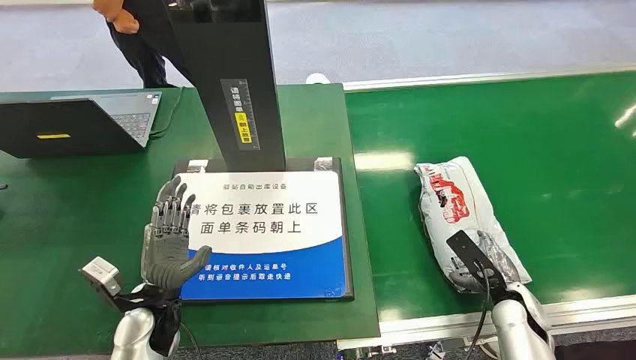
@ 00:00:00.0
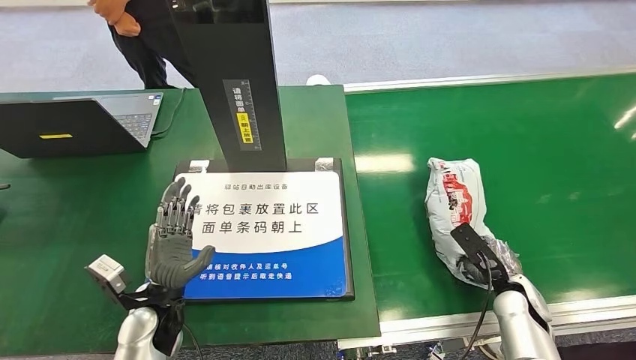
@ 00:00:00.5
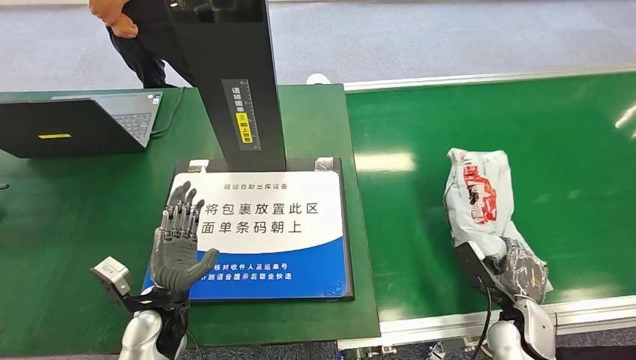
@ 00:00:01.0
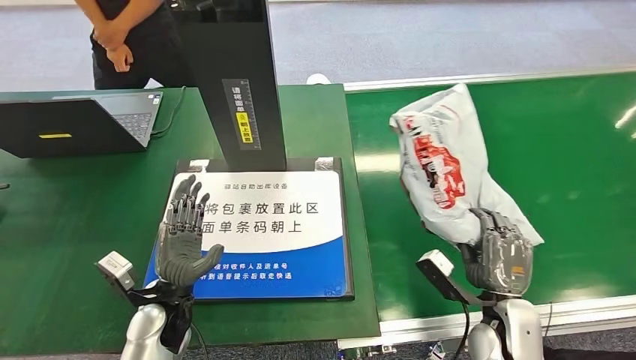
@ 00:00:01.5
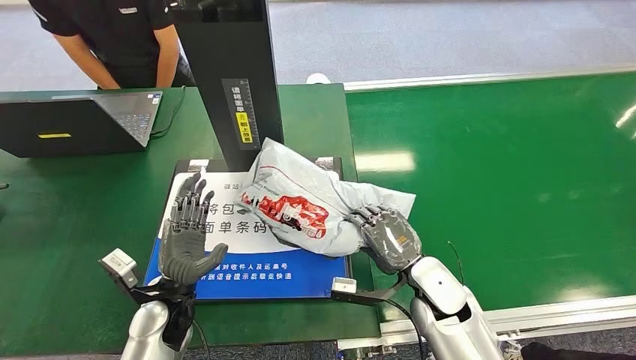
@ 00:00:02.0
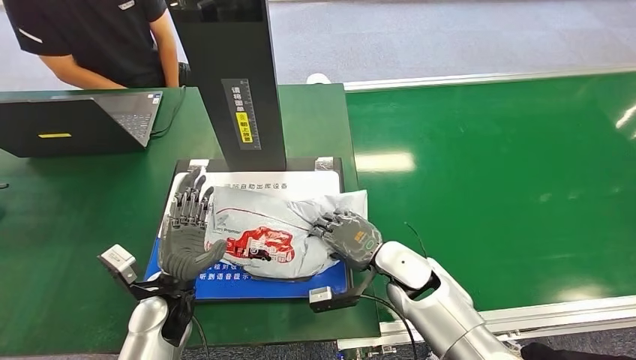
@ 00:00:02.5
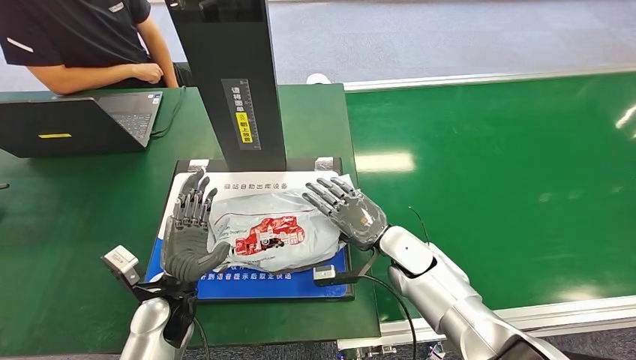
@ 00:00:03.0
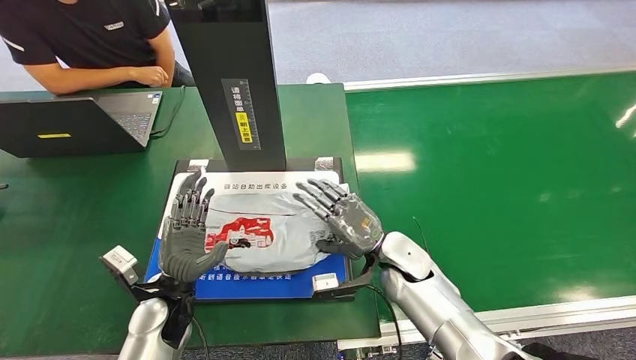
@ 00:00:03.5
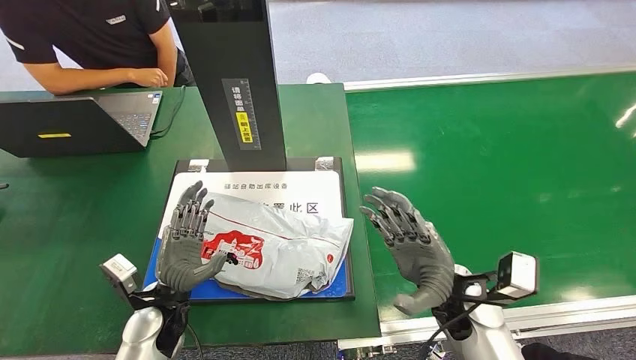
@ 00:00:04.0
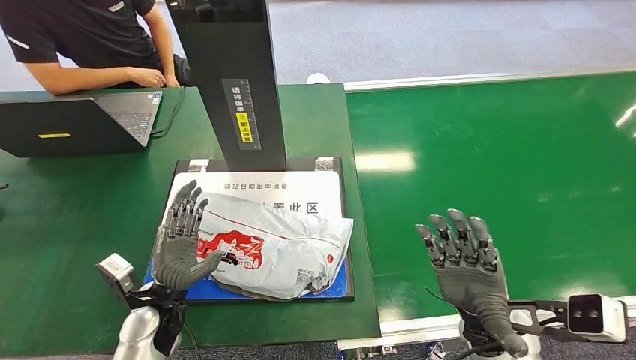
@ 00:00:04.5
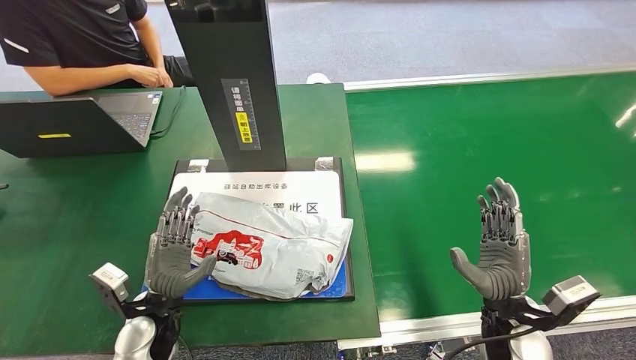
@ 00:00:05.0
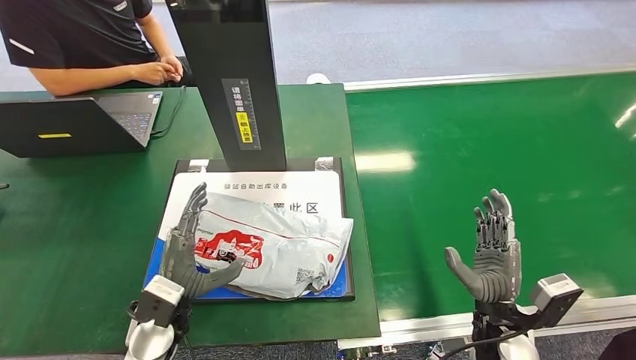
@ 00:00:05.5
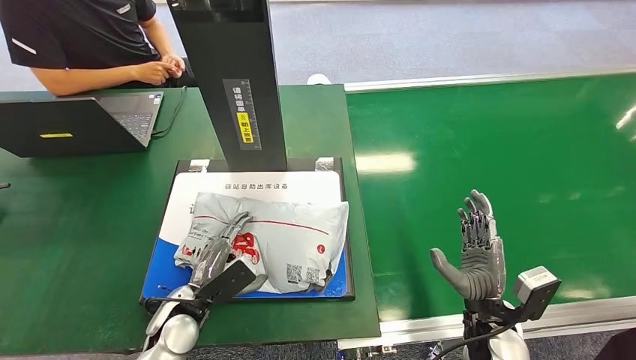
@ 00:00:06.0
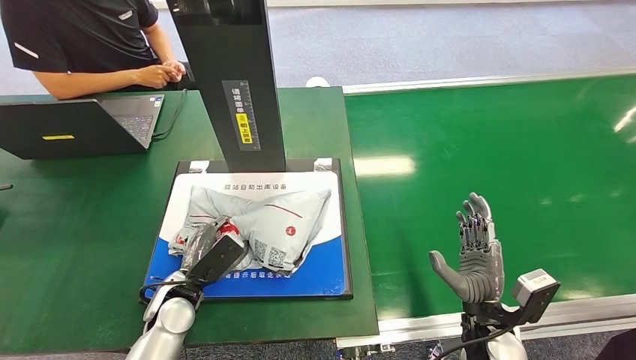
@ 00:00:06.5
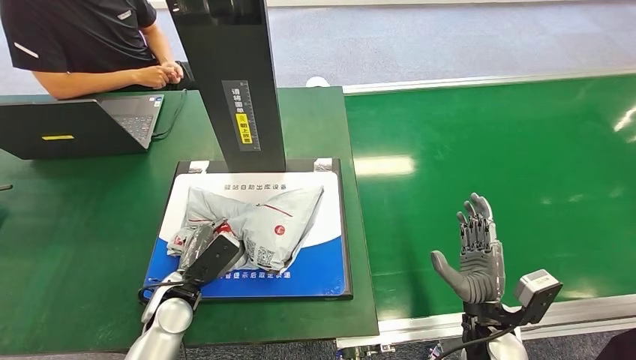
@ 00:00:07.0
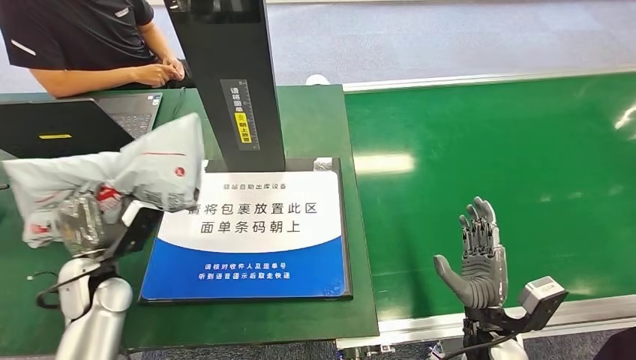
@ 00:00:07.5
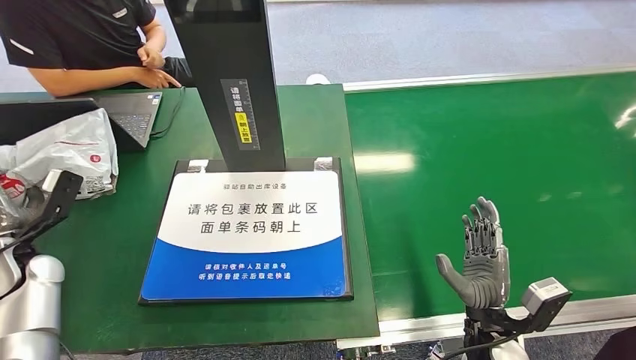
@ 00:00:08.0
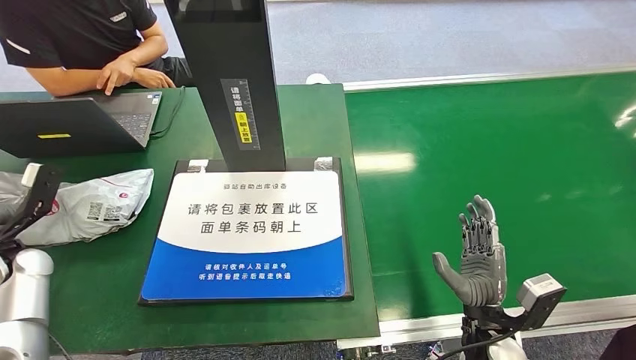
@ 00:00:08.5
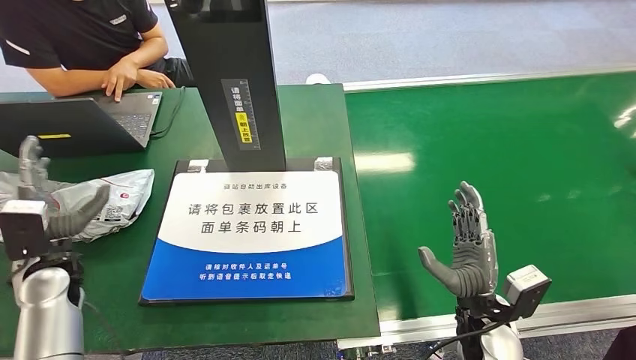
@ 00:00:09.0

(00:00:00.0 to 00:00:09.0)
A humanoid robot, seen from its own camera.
Step, 00:00:00.0 - 00:00:01.5: Pick up the package from the conveyor belt.
Step, 00:00:02.0 - 00:00:03.5: Place the package onto the inbound machine.
Step, 00:00:04.0 - 00:00:07.0: Pick up the package from the inbound machine.
Step, 00:00:08.0 - 00:00:09.0: Place the package into the parcel locker.
